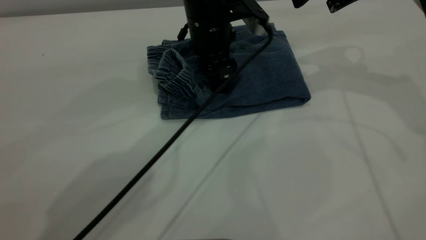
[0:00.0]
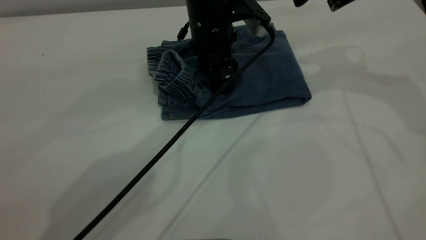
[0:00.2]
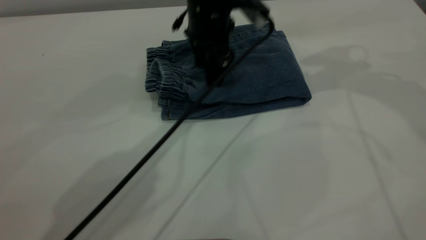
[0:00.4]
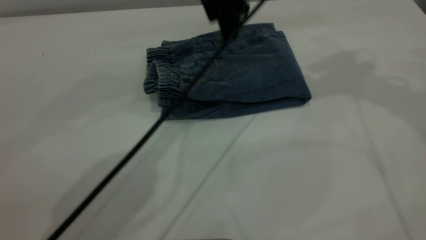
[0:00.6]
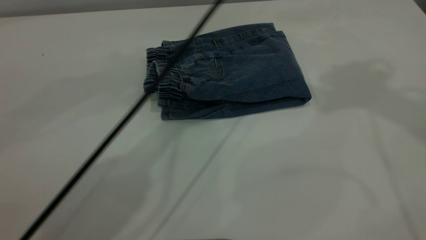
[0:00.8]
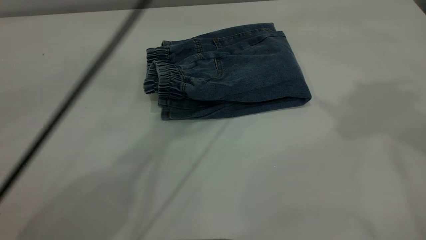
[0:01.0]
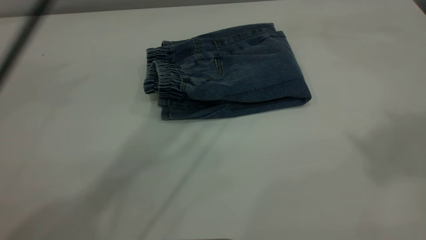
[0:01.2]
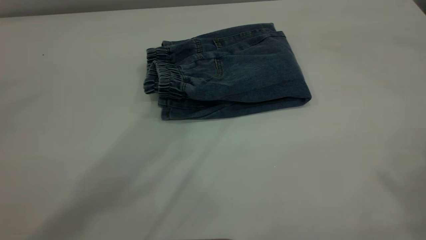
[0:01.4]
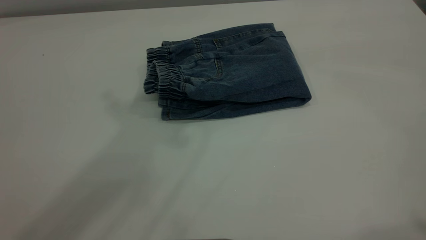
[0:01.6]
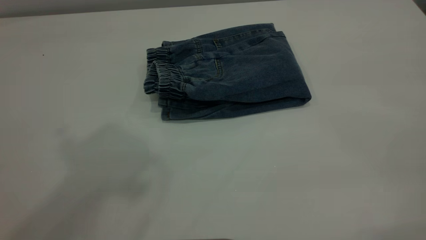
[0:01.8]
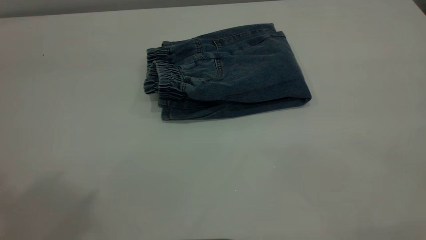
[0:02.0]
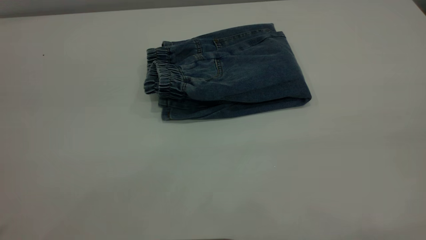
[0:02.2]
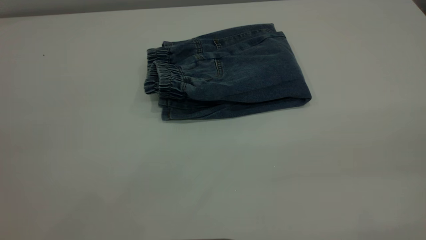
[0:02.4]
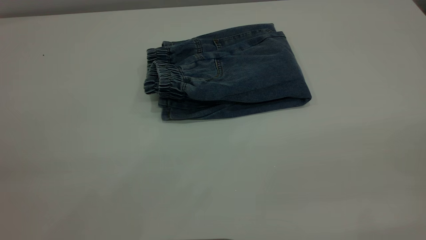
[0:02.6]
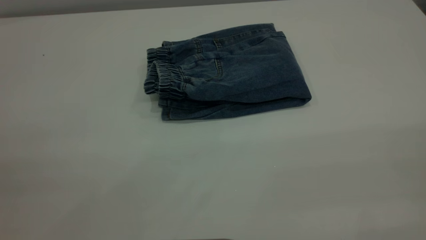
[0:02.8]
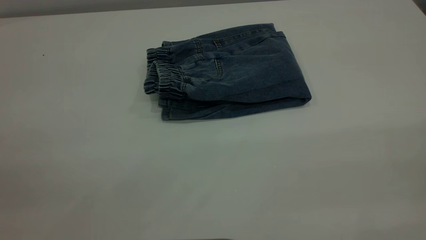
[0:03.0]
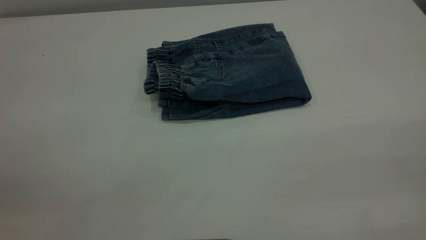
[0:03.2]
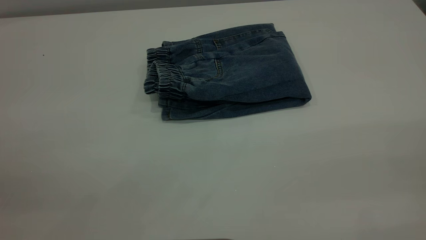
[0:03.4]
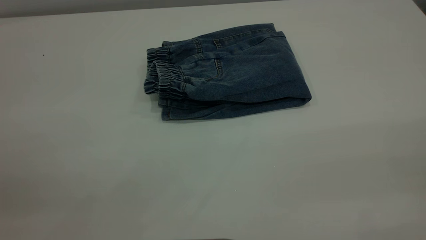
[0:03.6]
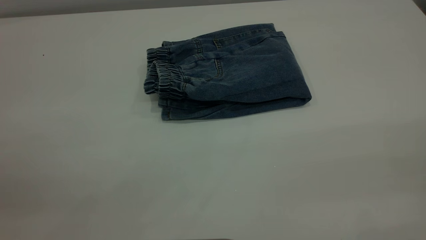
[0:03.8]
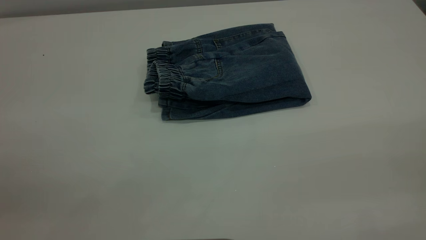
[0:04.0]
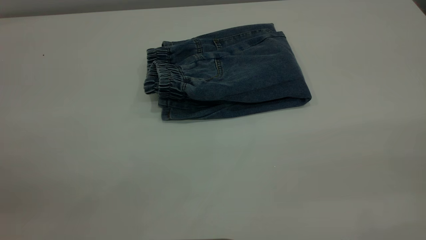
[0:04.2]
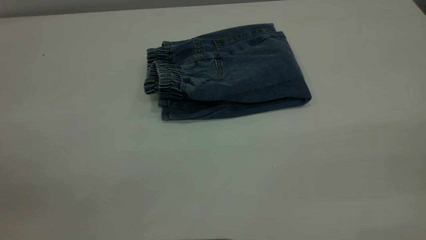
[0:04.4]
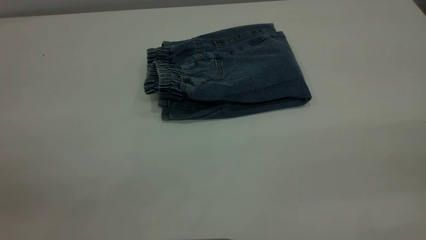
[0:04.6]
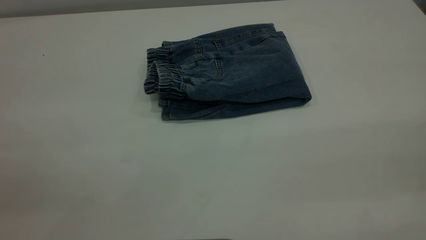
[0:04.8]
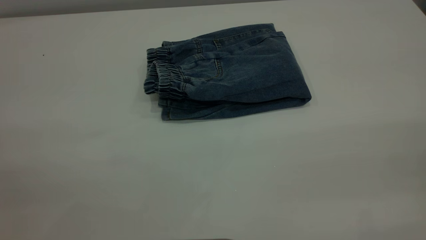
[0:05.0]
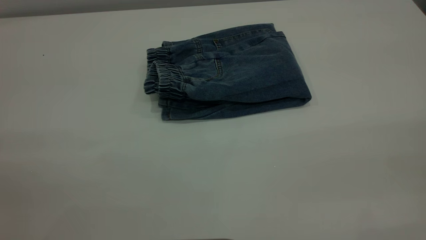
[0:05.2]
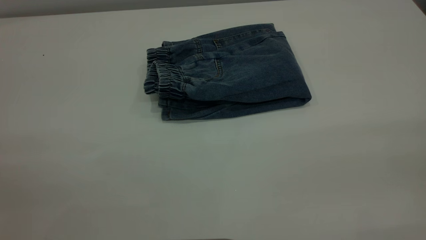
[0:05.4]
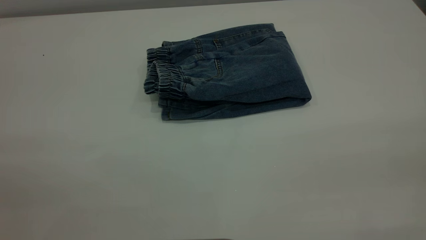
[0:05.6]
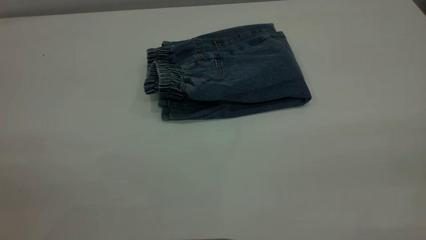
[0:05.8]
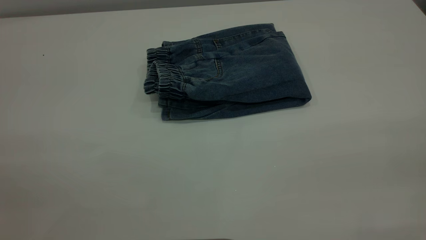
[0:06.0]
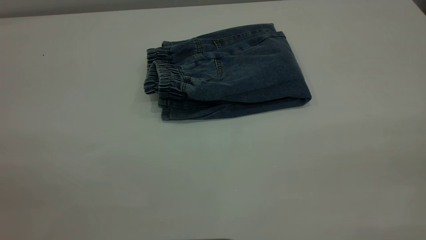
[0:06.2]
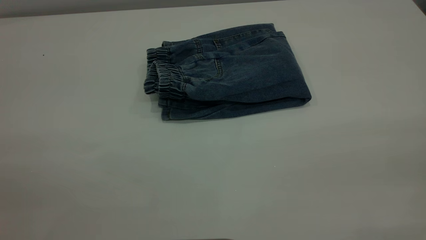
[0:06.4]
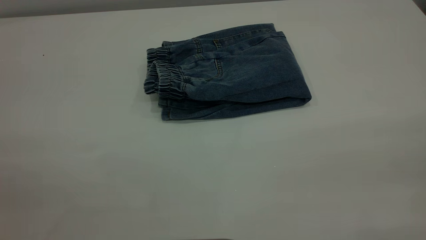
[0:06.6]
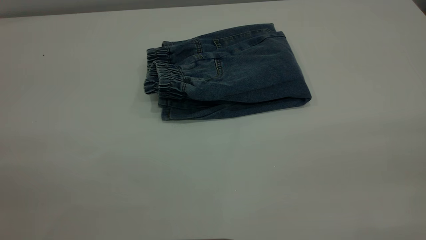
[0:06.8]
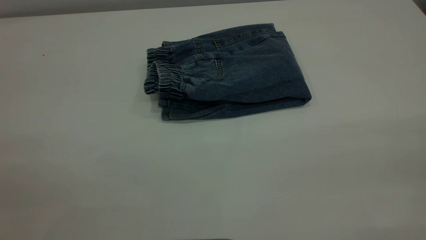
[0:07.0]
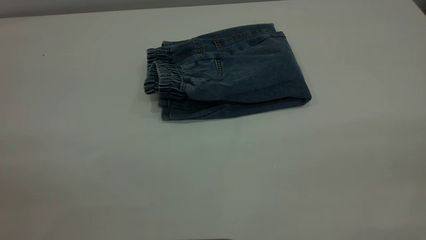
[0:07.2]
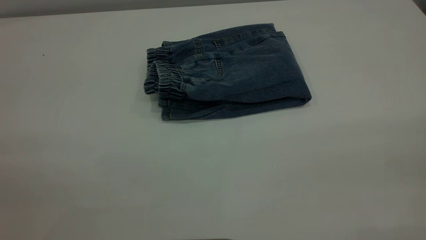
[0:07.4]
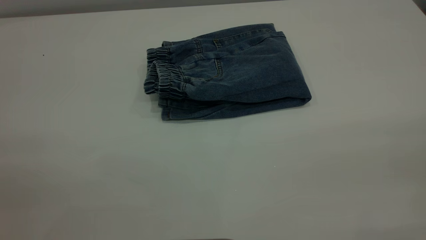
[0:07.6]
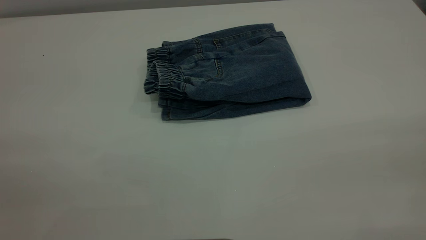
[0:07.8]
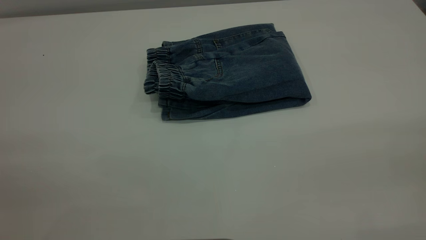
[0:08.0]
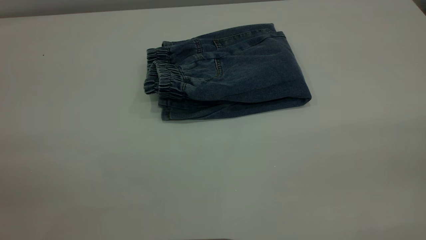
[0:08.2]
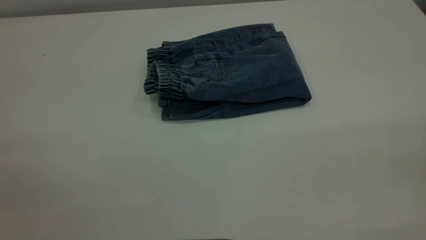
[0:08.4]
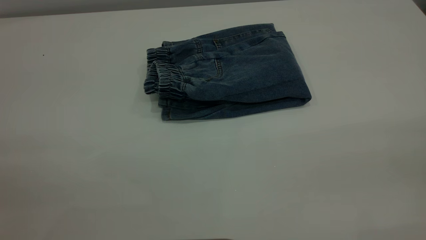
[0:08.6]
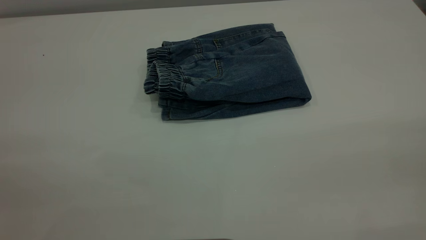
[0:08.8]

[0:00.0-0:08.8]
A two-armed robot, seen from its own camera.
0:00.0 to 0:01.4: The right gripper travels upward and backward by approximately 40 cm; the left gripper shifts roughly 40 cm upward.
0:05.8 to 0:08.8: The two grippers keep their place.
